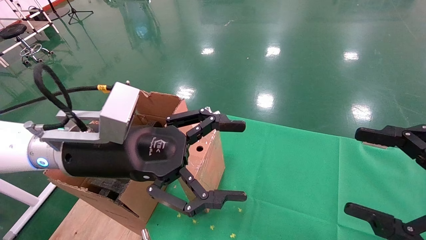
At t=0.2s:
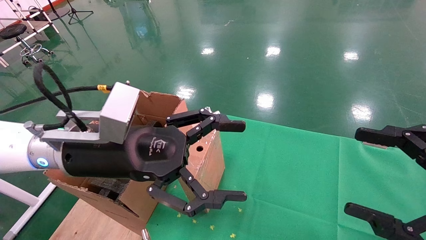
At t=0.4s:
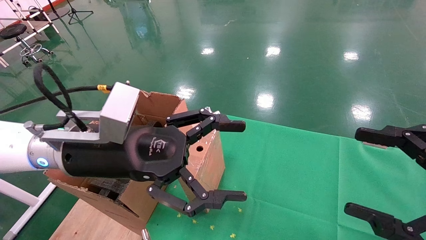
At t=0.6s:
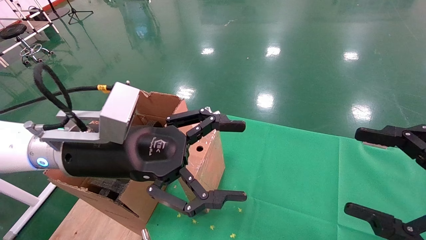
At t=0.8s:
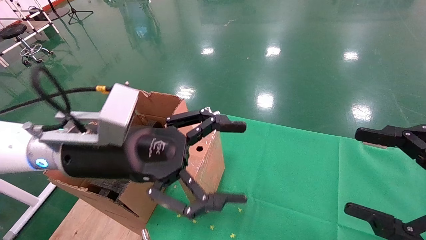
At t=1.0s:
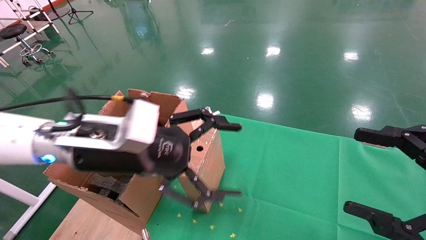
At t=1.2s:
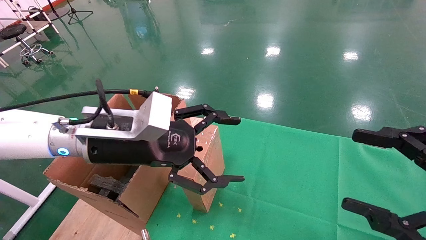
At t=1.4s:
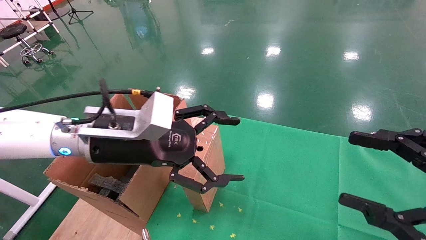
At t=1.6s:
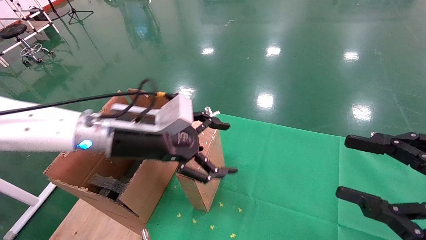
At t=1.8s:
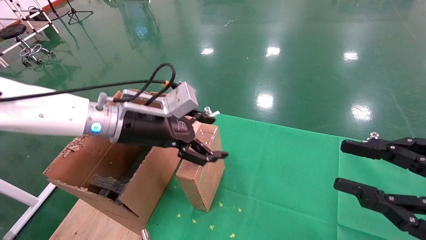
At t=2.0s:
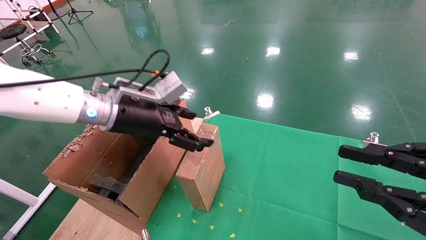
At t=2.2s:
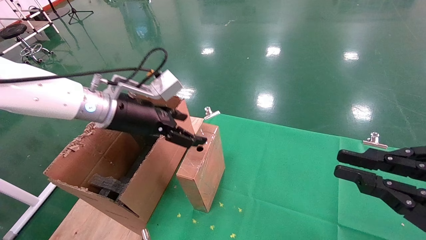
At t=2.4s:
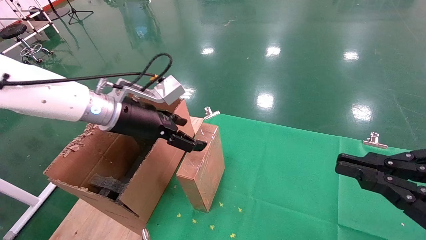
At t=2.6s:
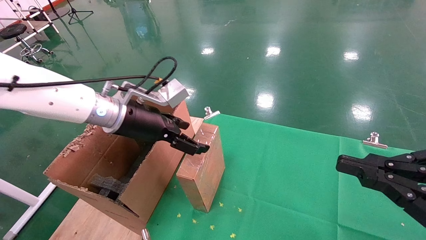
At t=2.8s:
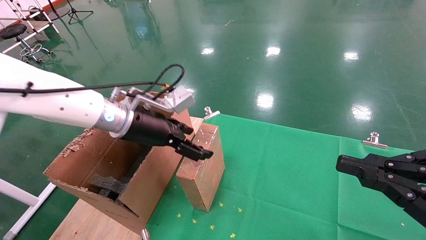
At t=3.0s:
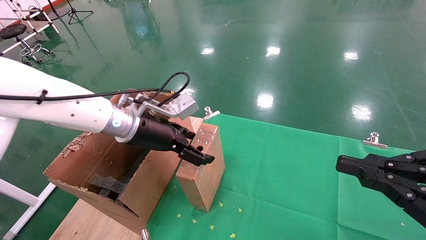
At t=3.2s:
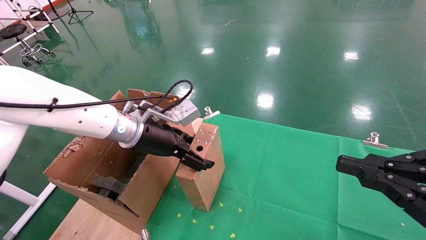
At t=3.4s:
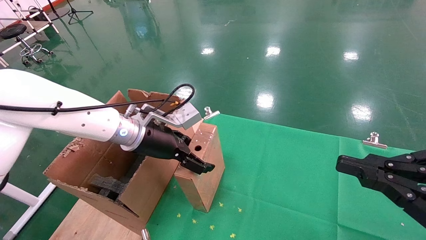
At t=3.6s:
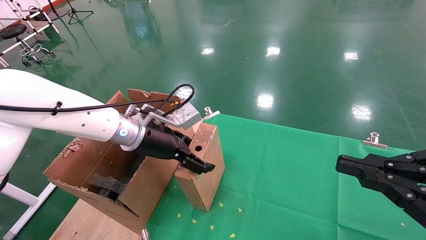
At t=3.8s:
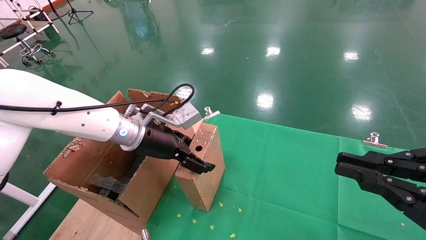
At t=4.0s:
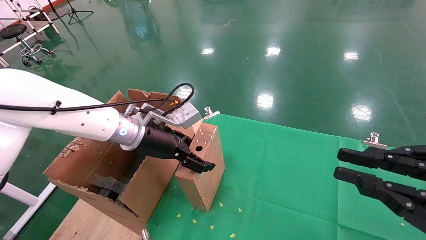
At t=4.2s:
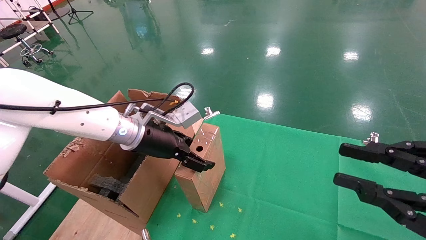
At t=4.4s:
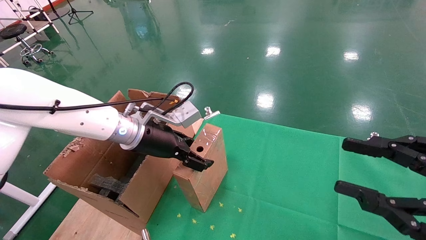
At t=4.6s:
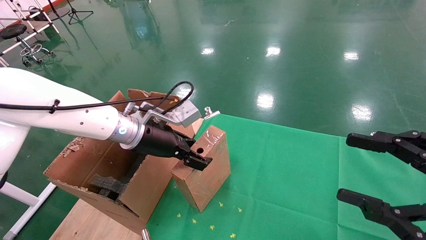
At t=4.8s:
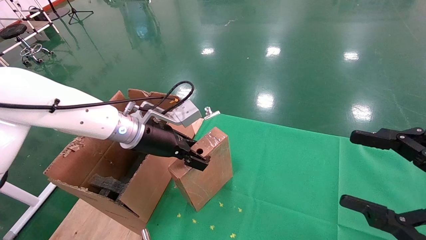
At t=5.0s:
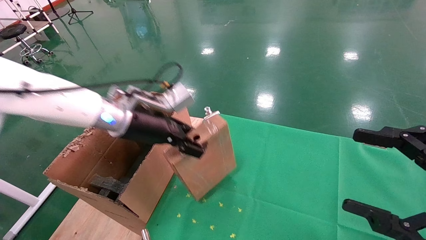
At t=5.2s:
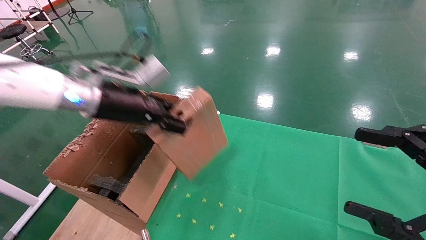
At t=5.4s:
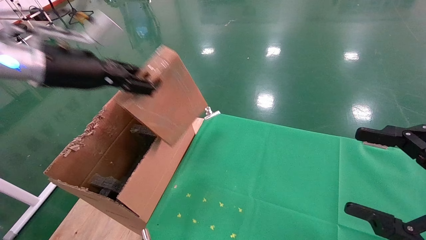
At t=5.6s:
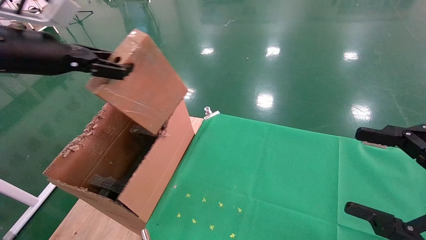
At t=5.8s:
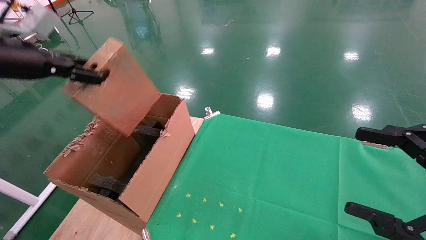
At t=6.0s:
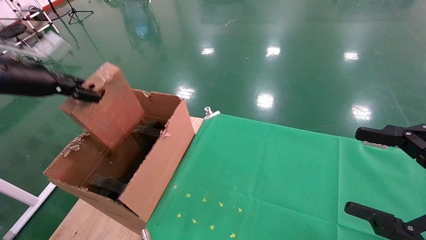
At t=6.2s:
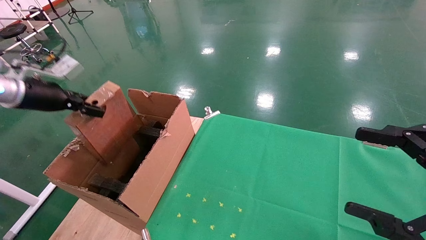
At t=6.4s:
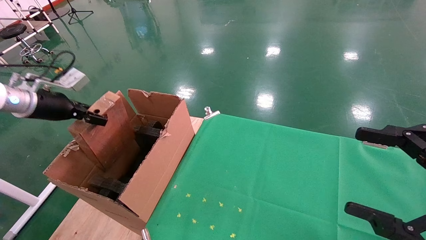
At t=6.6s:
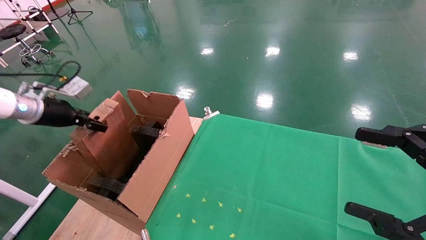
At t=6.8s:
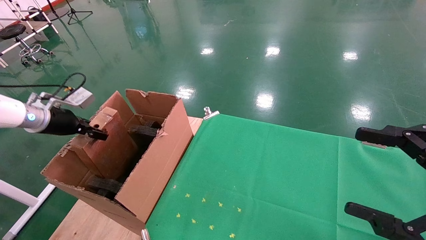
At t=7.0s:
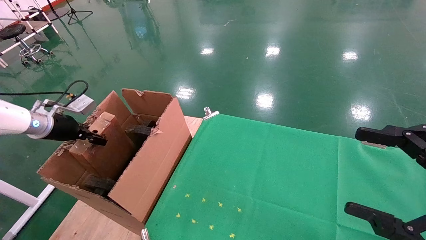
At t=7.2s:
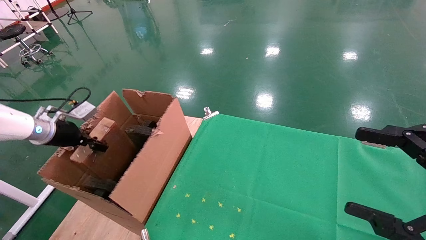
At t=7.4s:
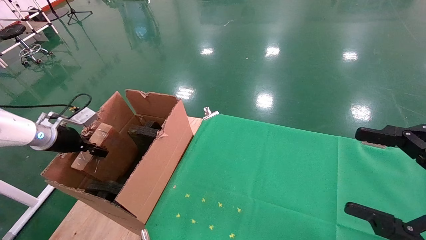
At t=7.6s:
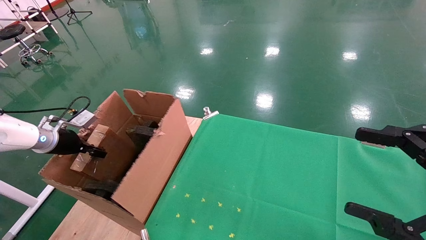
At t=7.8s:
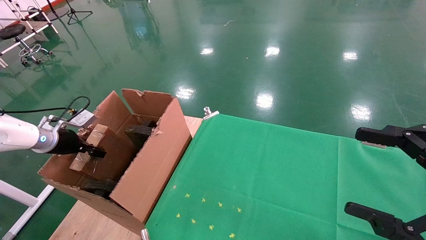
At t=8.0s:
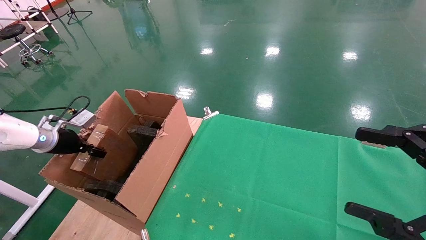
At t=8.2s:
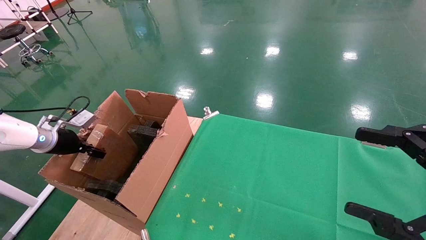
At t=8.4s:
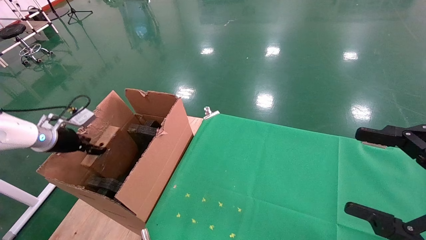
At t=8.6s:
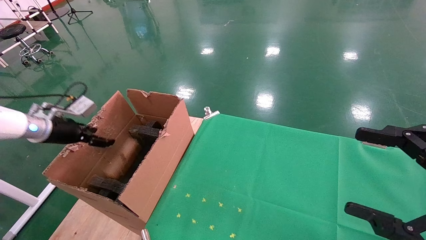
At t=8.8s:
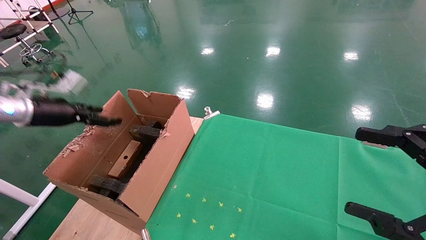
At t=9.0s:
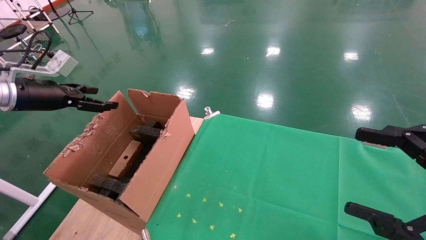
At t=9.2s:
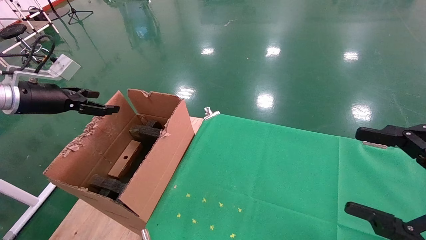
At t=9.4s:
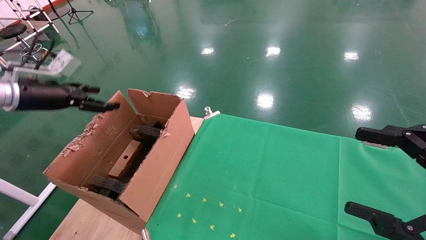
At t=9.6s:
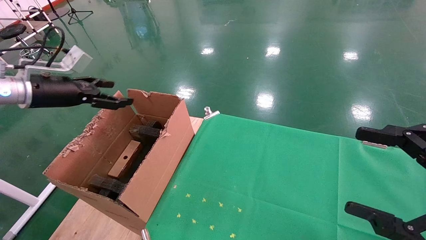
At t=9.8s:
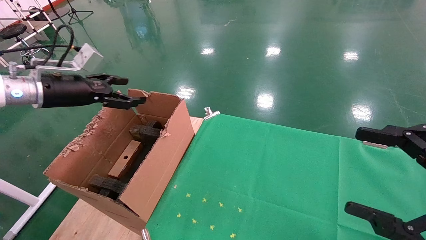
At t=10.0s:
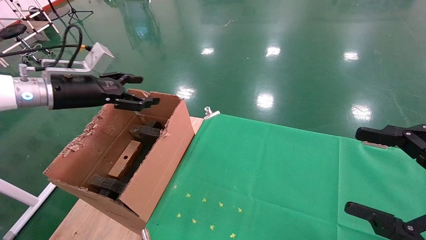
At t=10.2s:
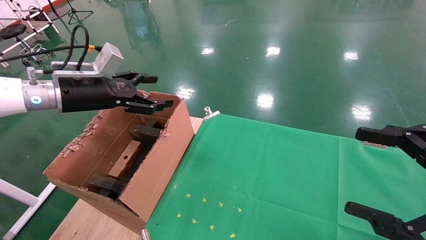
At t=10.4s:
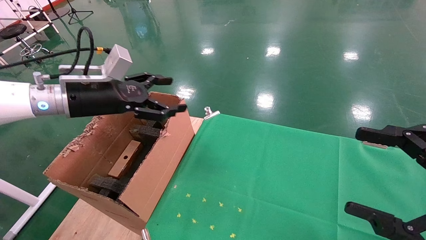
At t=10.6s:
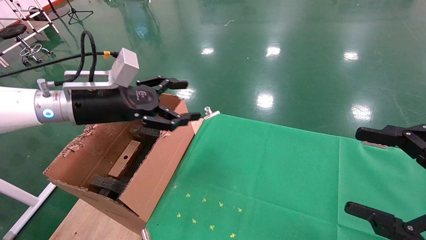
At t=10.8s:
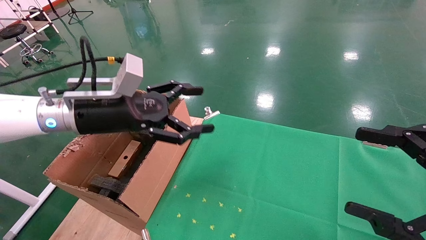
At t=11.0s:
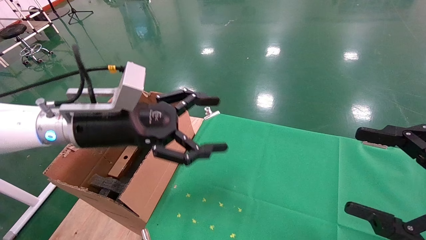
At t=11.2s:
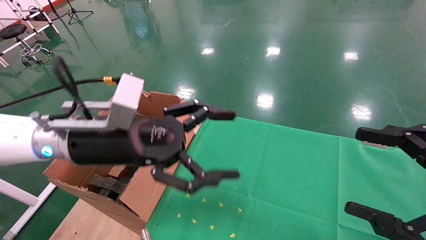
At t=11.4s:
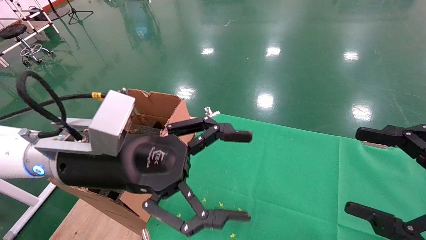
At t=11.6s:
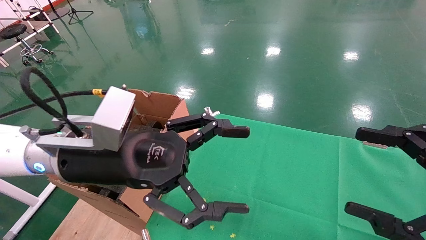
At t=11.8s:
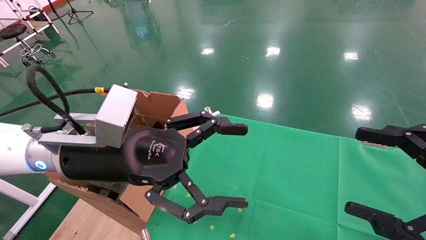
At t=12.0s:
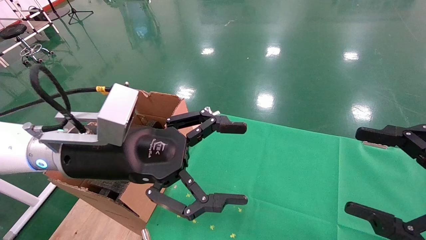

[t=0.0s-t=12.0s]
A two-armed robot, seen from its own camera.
Task of the whole recording: using a robotic arm to pick up a cardboard box and palace it the carton.
Step, t=1.2s to t=4.8s: Pick up the mouse and the power cord paper box.
Step, t=5.0s to t=8.4s: Place the mouse and the power cord paper box into the container.
t=0.0s to t=1.6s: The left gripper moves forward, approximately 5 cm.
t=1.6s to t=3.0s: The right gripper closes up.
t=3.0s to t=4.4s: The right gripper opens up.
t=4.4s to t=6.0s: The left gripper is displaced to the left and upward by about 25 cm, and closes up. The right gripper opens up.
t=6.0s to t=7.6s: The left gripper shifts approximately 20 cm downward.
t=7.6s to t=9.0s: The left gripper is displaced upward by approximately 10 cm, and opens.
t=9.0s to t=10.4s: The left gripper heads to the right, covering some 15 cm.
t=10.4s to t=12.0s: The left gripper travels to the right and backward by about 15 cm.

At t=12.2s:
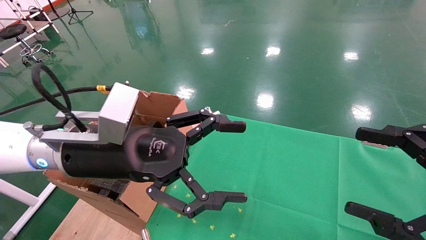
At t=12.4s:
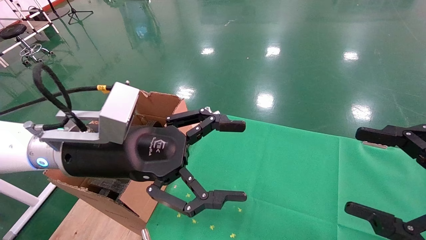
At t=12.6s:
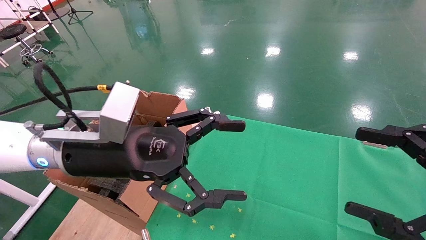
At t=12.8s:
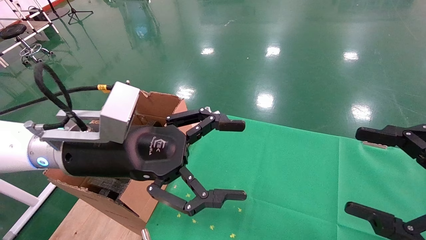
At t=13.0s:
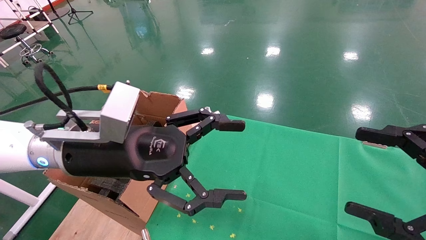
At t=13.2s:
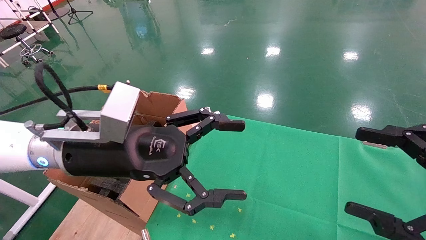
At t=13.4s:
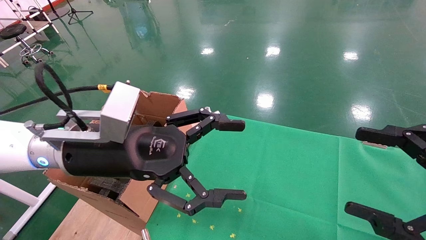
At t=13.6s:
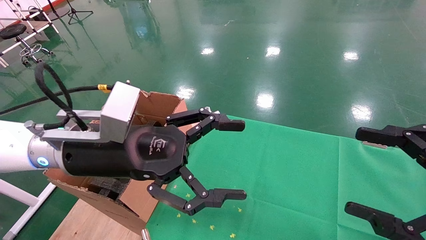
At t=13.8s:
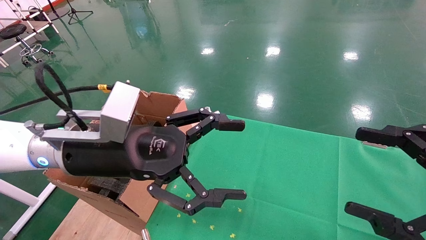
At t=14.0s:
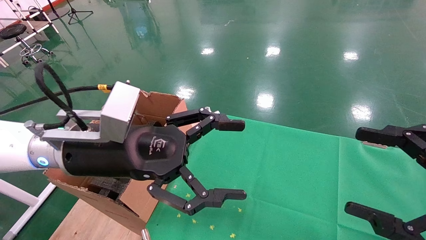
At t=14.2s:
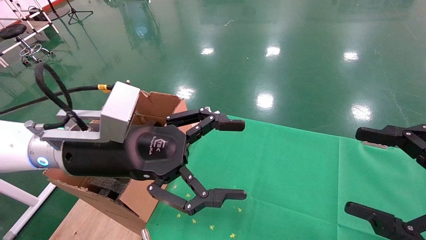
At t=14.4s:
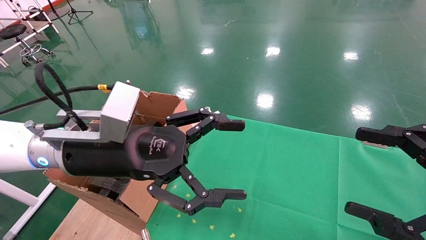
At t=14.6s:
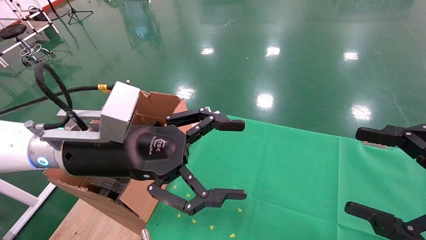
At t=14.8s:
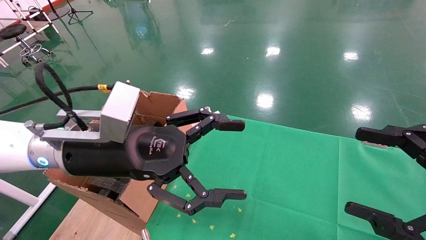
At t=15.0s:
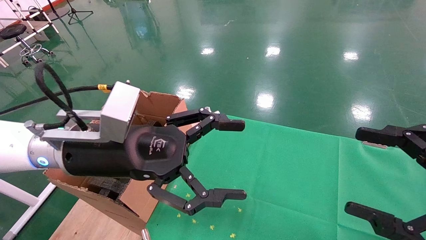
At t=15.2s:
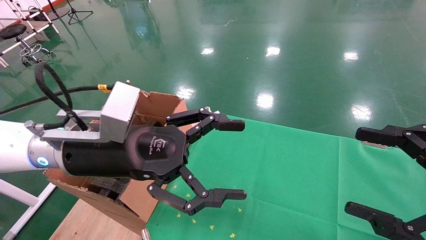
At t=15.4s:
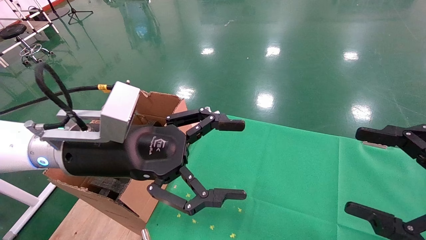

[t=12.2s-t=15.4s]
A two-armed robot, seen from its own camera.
Task of the whole recording: using a robotic arm to pick up a cardboard box and palace it the carton.
t=12.2s to t=15.4s: Both grippers stay about where they are.

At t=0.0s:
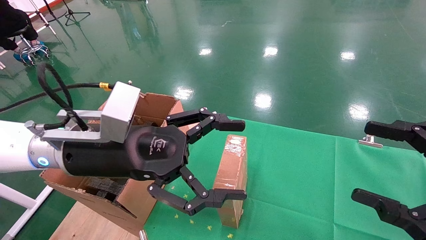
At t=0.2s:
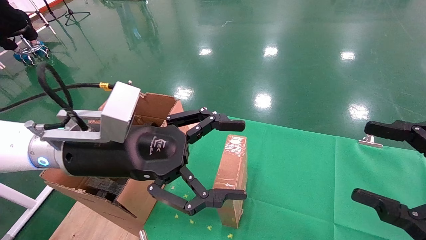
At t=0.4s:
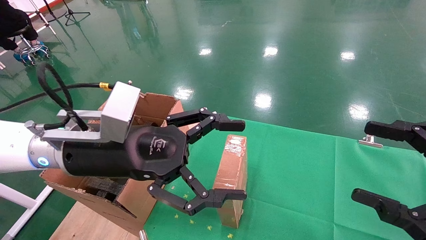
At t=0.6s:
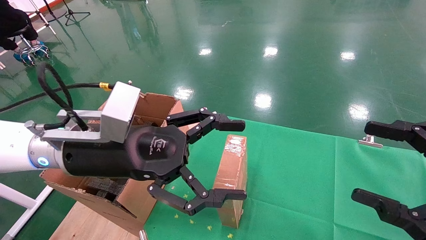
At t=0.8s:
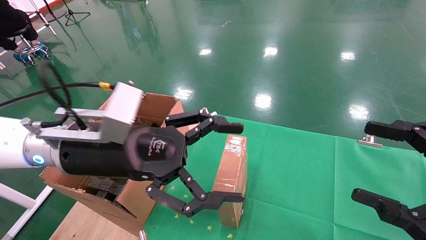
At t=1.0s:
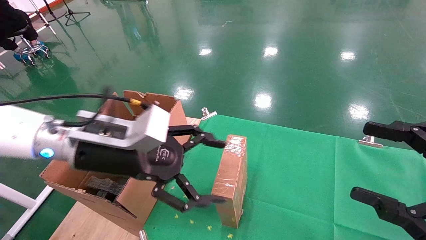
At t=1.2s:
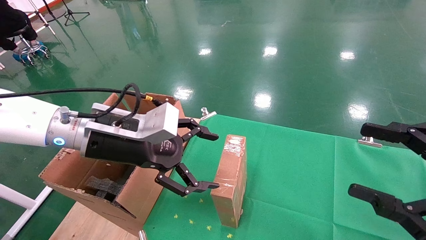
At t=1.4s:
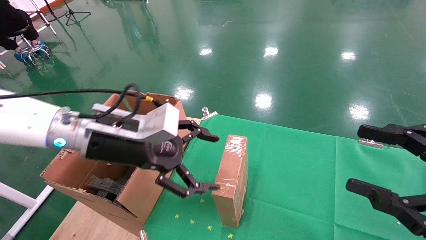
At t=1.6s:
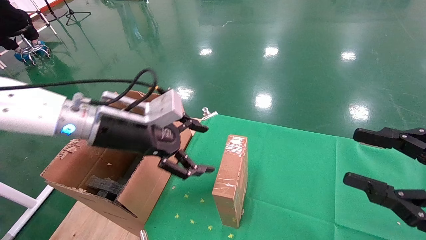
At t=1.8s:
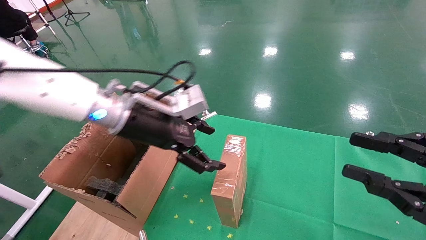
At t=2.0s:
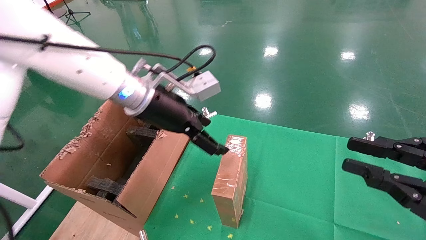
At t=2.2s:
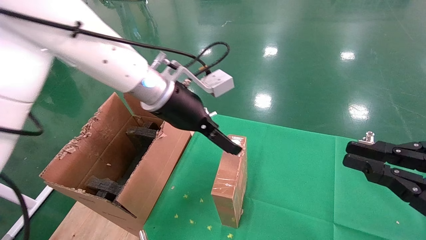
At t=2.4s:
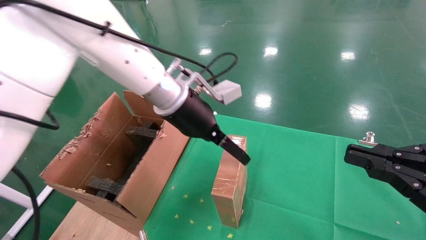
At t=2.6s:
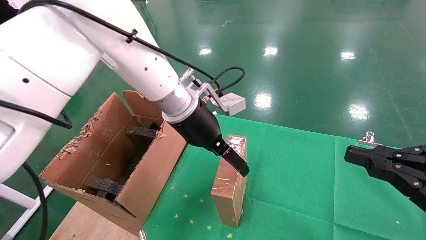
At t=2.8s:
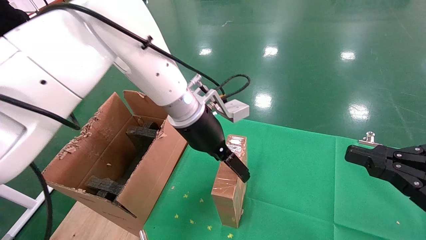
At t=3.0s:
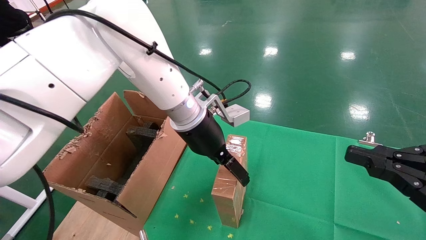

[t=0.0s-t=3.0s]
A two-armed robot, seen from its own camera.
Task of the whole recording: using a robotic arm to pick up a cardboard box and palace it the carton.
t=0.0s to t=1.6s: The left gripper shifts some 5 cm forward.
t=1.6s to t=3.0s: The left gripper travels to the right and forward by roughly 15 cm. Meanwhile the right gripper closes.
